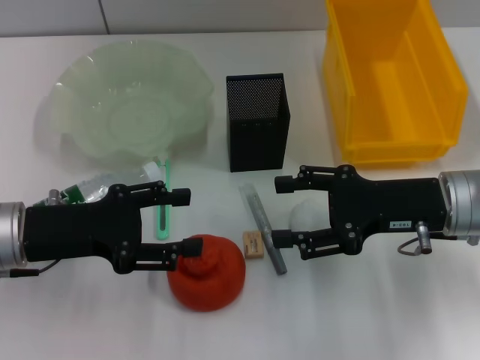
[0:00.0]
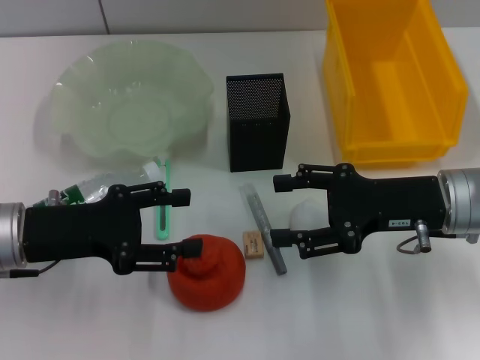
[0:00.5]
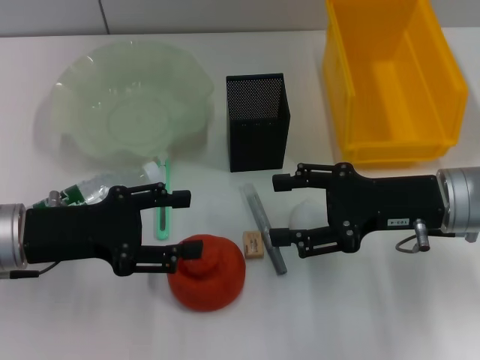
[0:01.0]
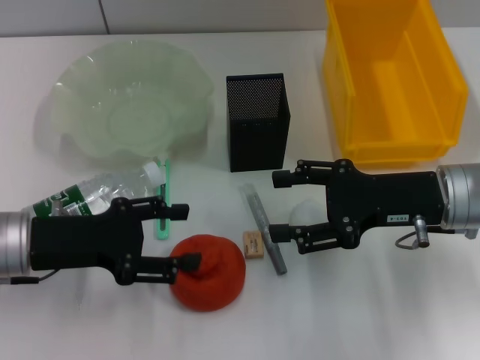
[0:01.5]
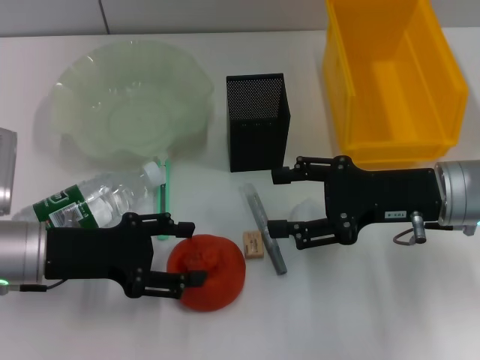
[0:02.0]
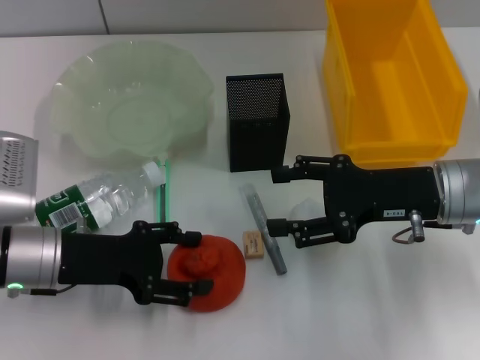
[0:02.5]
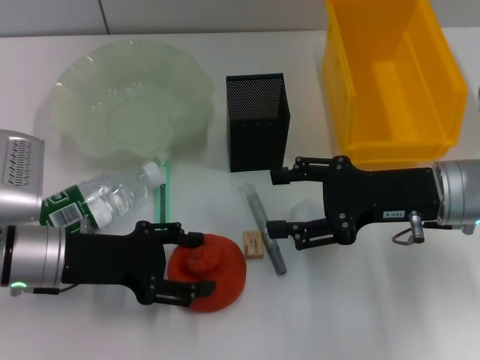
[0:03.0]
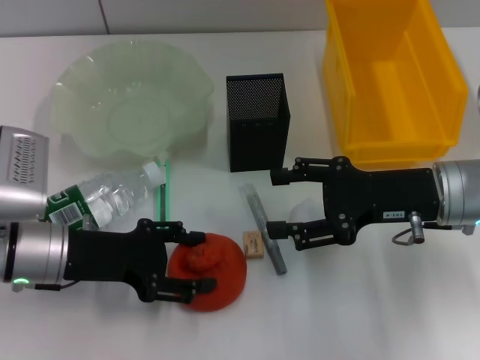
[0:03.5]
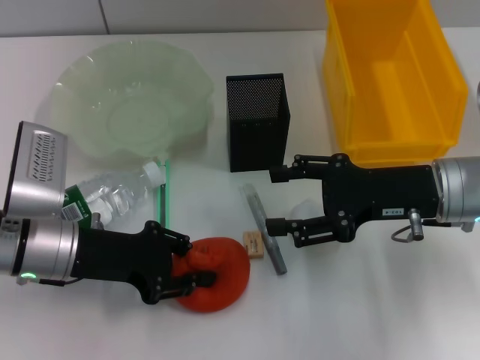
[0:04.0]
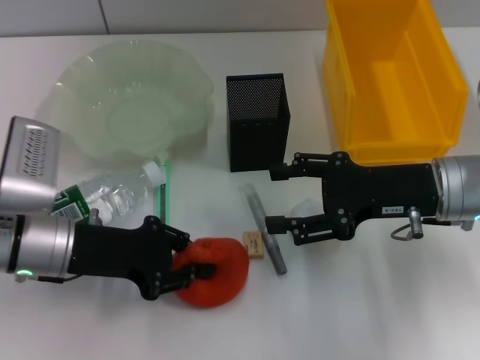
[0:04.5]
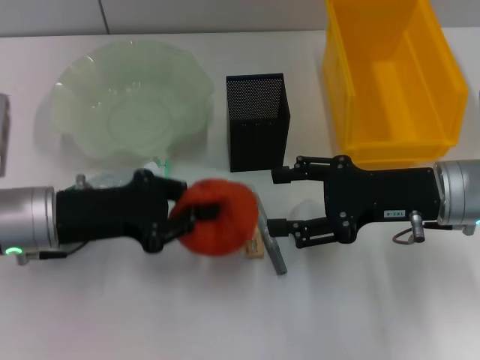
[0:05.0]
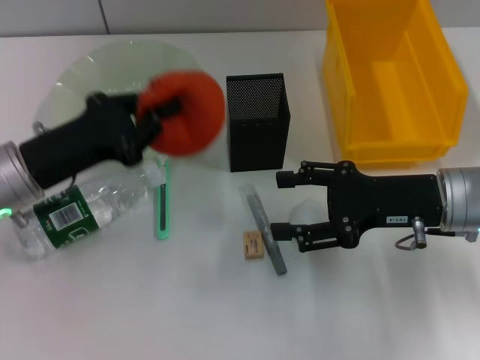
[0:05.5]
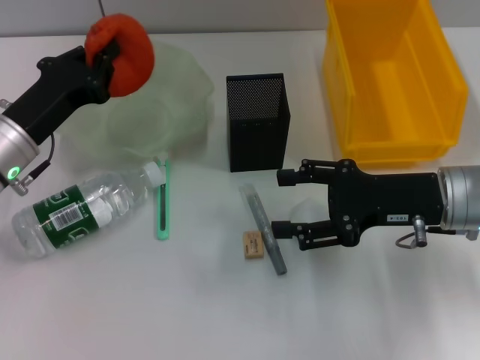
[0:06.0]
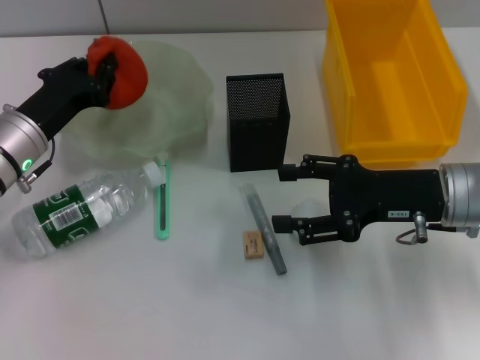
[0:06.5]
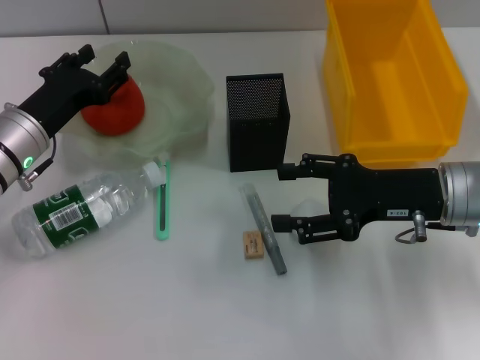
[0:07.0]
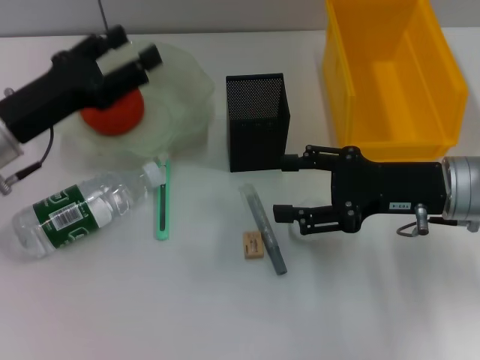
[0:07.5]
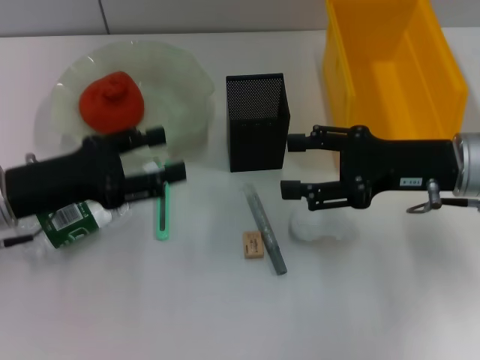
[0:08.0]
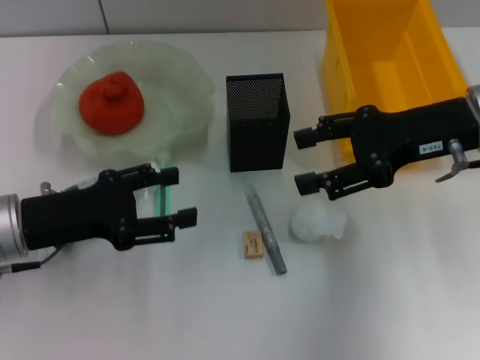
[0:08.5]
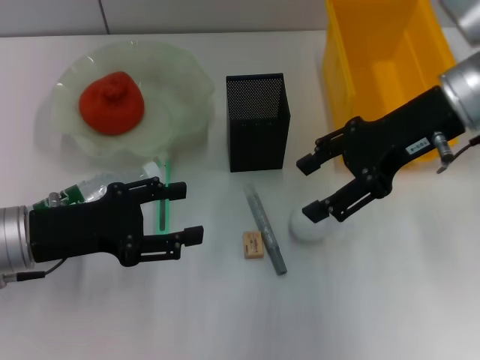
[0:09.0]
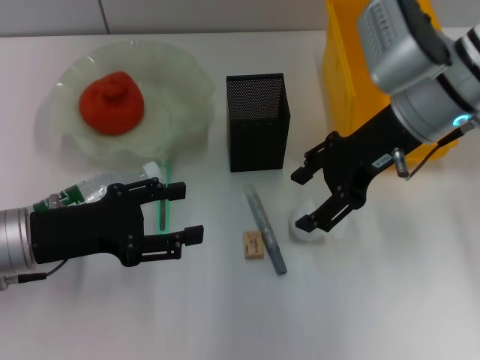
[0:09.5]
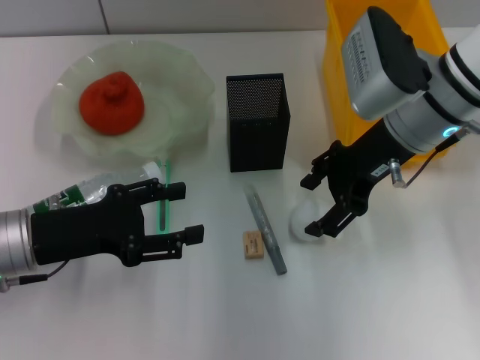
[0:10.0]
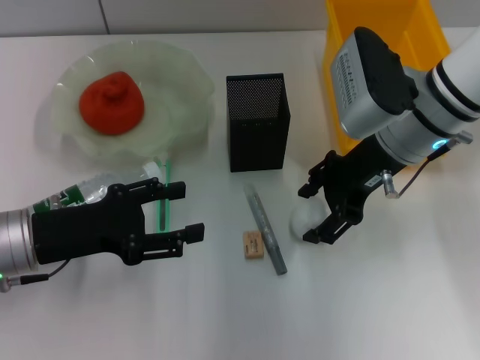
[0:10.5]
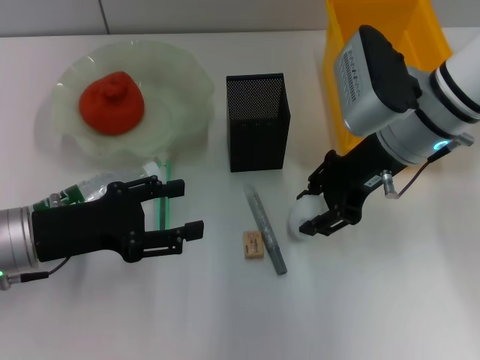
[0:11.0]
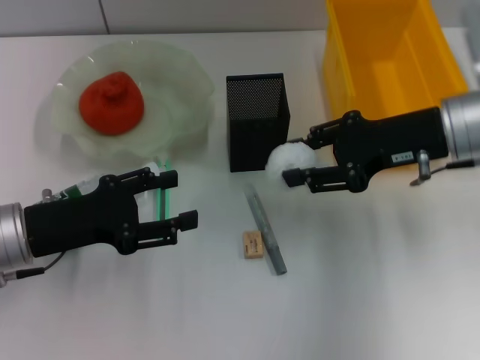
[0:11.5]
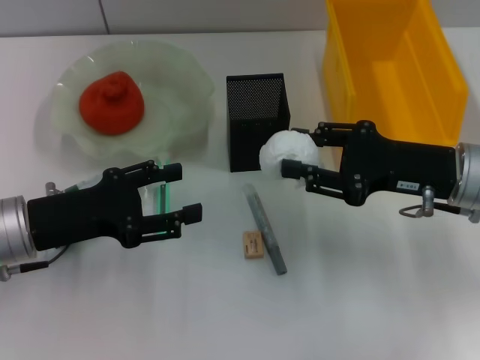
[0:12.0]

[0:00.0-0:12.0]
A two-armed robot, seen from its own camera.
Step, 0:00.0 to 0:04.0: Grab the orange with the left hand.
Step, 0:04.5 to 0:07.0: Place the orange into the fruit bowl with the left hand.
Step, 0:07.5 to 0:10.5: Grab the paper ball with the right hand.
0:00.0 to 0:02.0: There are only small adjustments of the grippers.
0:02.0 to 0:04.0: The left gripper closes.
0:04.0 to 0:06.0: The left gripper ends up some 5 cm from where it was, and closes.
0:06.0 to 0:08.0: The left gripper changes place by roughly 5 cm, and opens its fingers.
0:08.0 to 0:10.0: The right gripper travels to the left and forward by some 10 cm.
0:10.0 to 0:12.0: The right gripper heads to the right, backward and downward, covering roughly 10 cm.

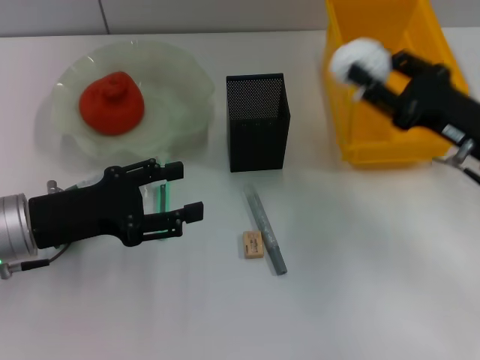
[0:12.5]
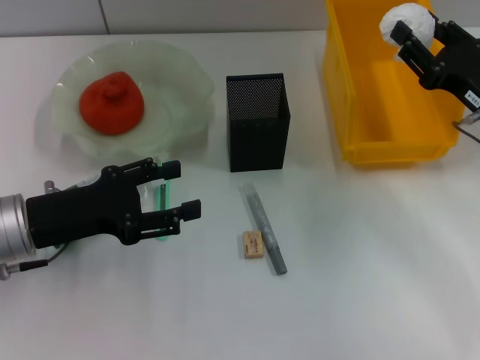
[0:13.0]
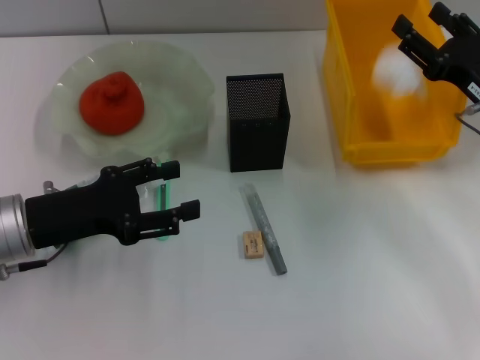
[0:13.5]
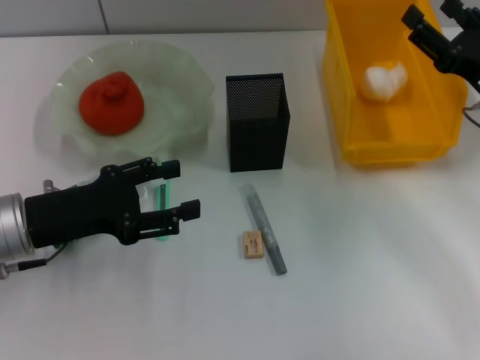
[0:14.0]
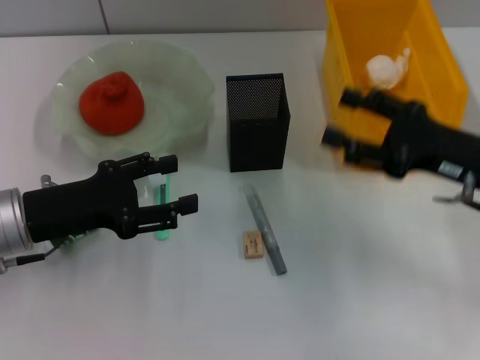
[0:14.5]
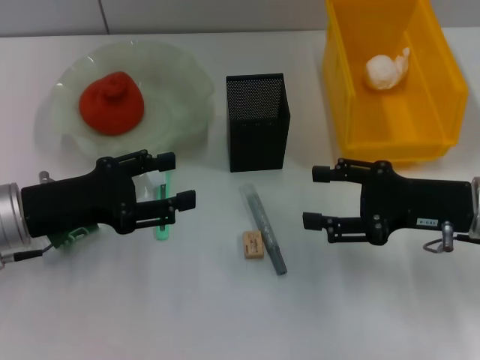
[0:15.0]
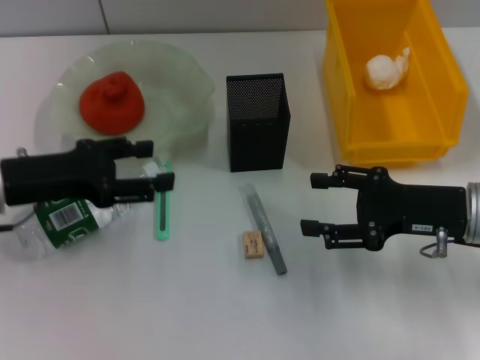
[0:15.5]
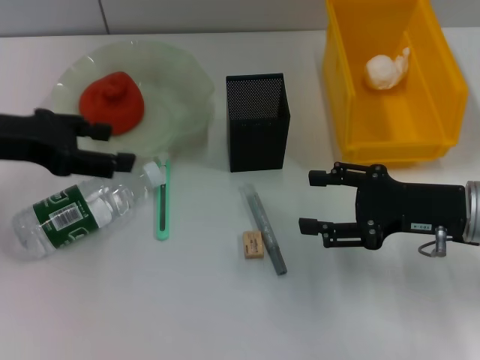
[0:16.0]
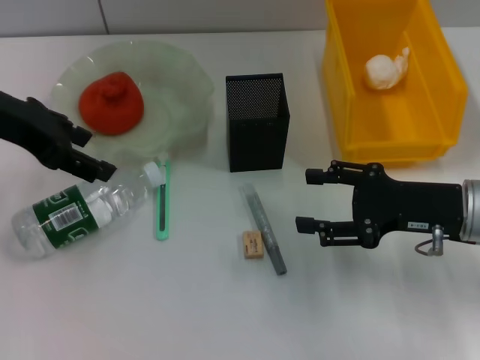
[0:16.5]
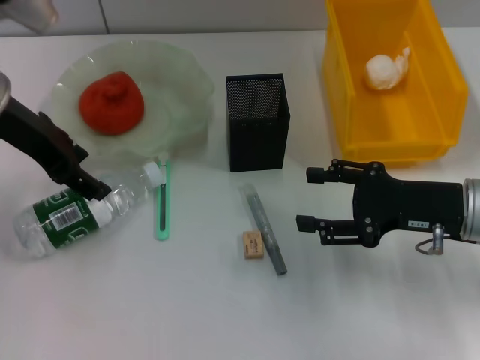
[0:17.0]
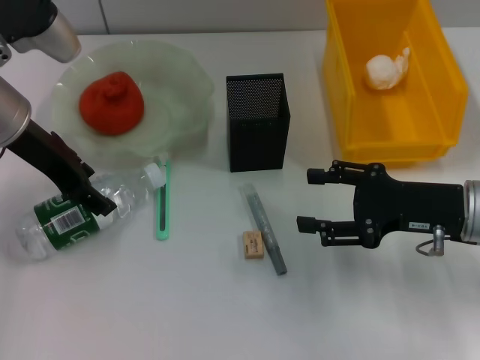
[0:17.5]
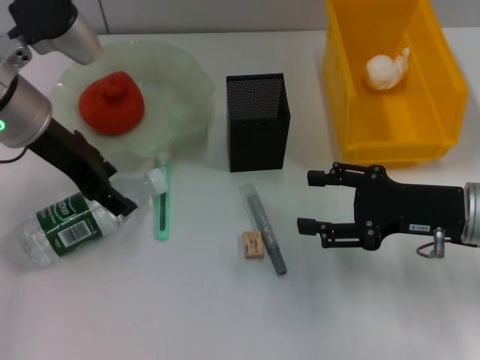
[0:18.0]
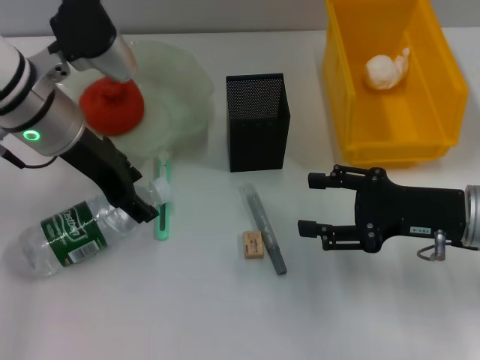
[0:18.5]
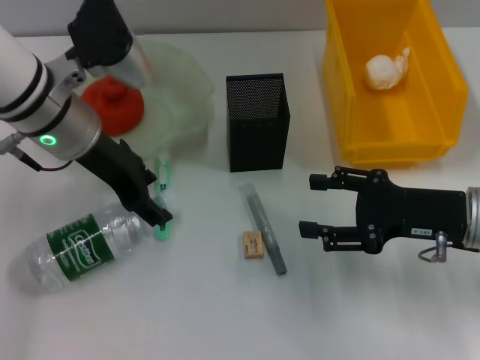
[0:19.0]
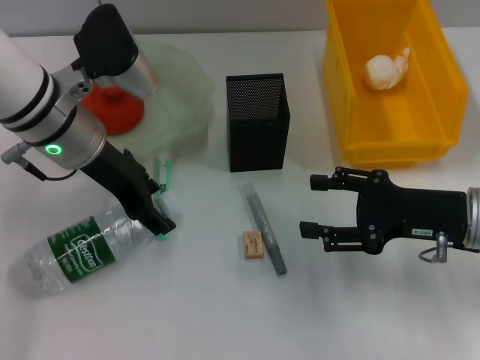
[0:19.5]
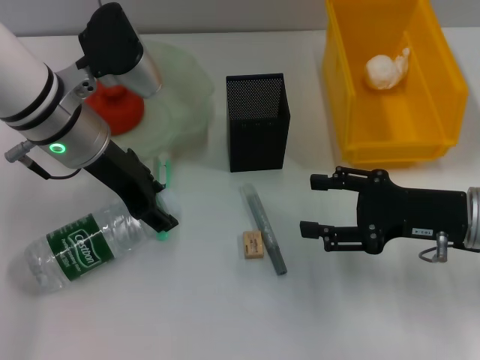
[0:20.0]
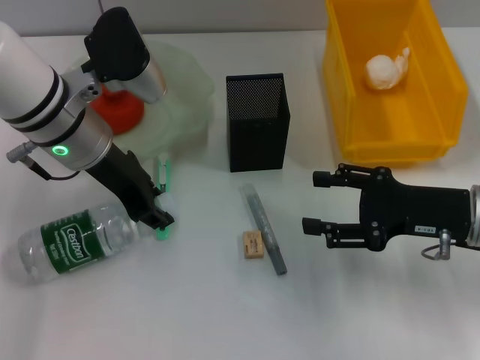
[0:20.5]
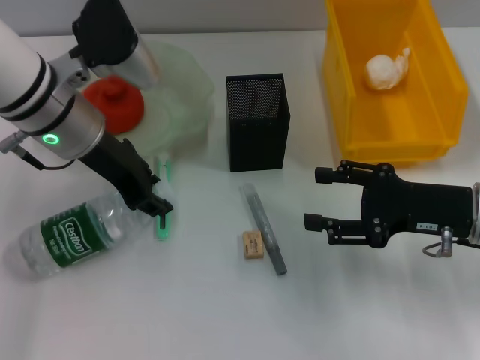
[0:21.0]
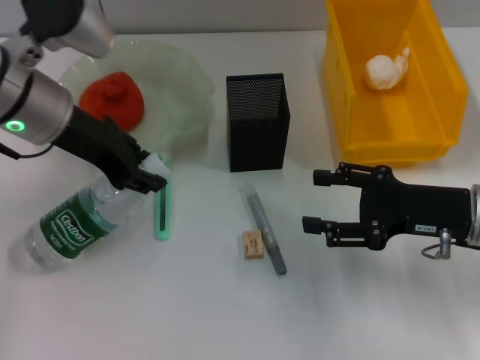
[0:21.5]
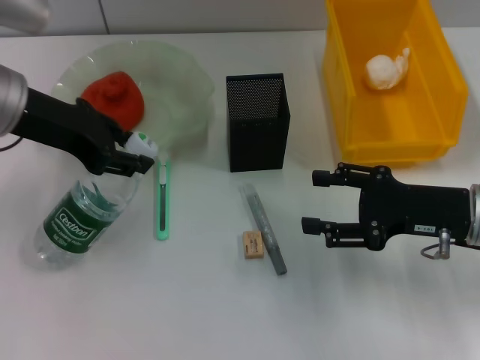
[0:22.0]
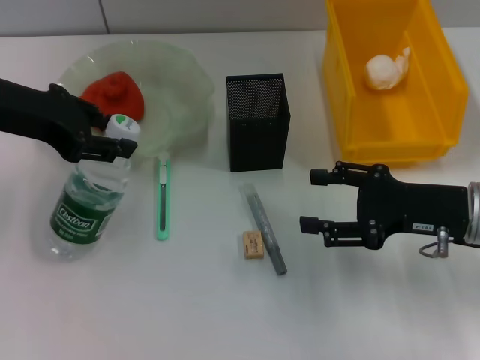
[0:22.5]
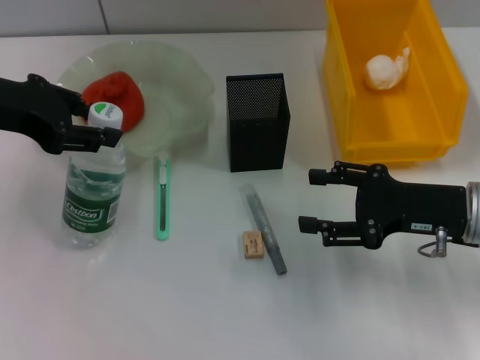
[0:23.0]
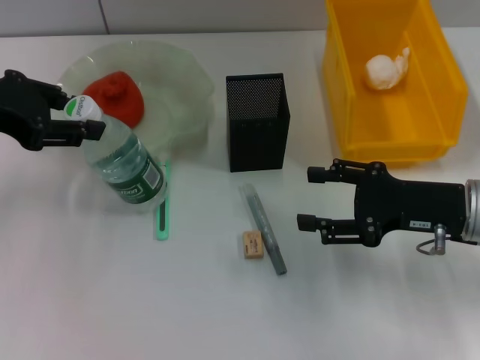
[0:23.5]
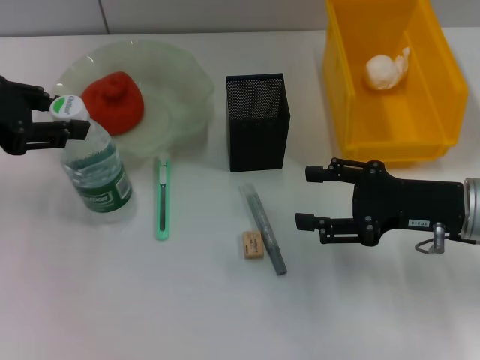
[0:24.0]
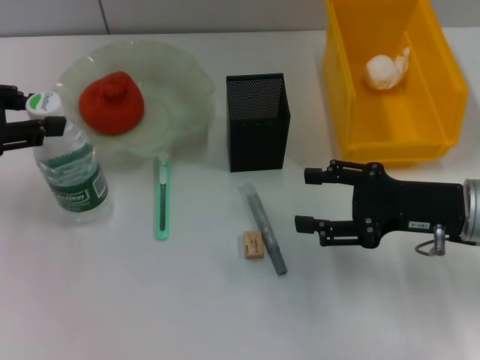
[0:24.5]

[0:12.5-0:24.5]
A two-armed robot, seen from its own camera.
Step, 0:14.0 to 0:20.0: Grab the water bottle with the left hand.
0:12.5 to 0:14.5: The right gripper opens its fingers.
0:14.5 to 0:16.5: The left gripper moves upward and forward, some 15 cm.
0:16.5 to 0:18.5: The left gripper moves to the right and downward, approximately 10 cm.
0:18.5 to 0:20.5: The left gripper closes up.
0:20.5 to 0:22.5: The left gripper travels to the left and upward by roughly 10 cm.
0:22.5 to 0:24.5: The left gripper is displaced to the left by some 5 cm.

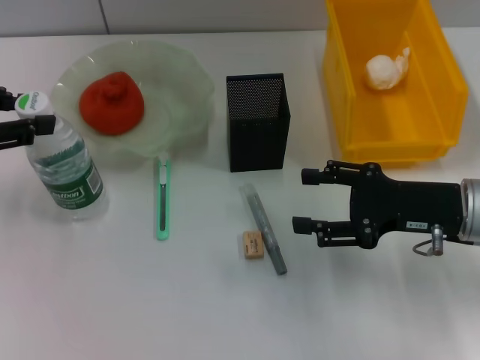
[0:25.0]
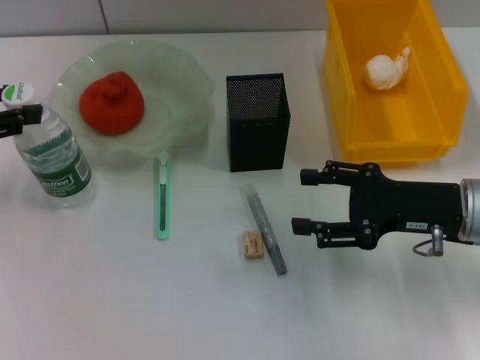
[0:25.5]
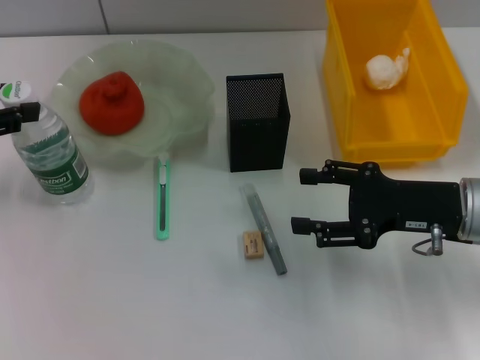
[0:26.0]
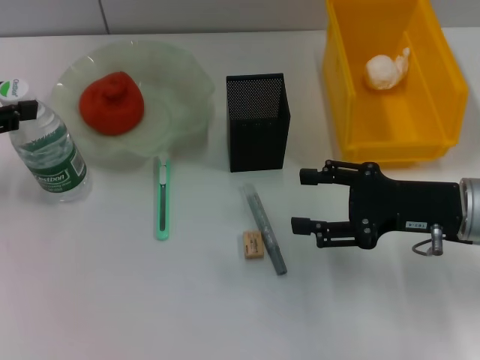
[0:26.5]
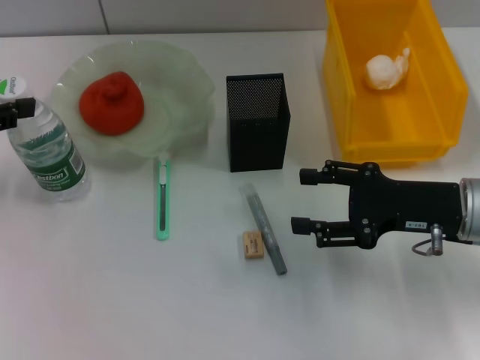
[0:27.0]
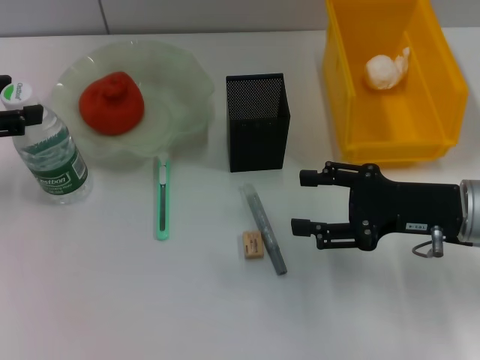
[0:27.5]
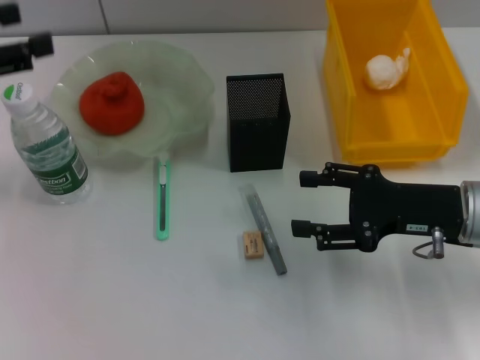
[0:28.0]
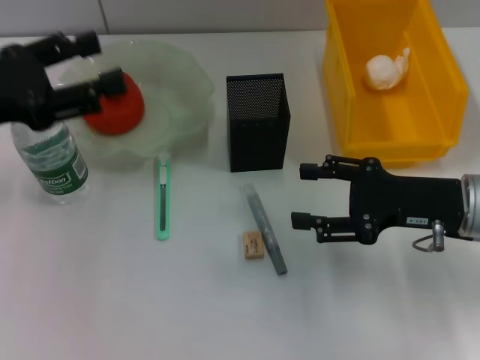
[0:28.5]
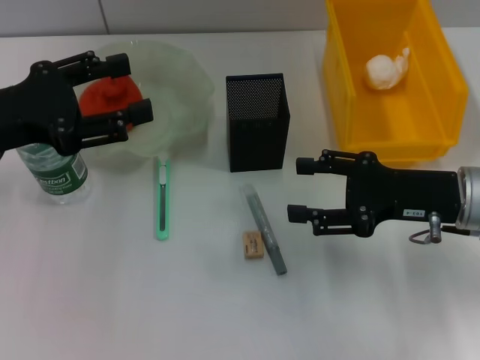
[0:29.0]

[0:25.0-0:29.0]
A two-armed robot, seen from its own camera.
Step, 0:25.0 to 0:27.0: Place the water bottle on the table with the left hand.
0:25.0 to 0:27.0: The grippers move only a little.
0:27.0 to 0:29.0: The left gripper moves to the right, roughly 5 cm, and opens up.
